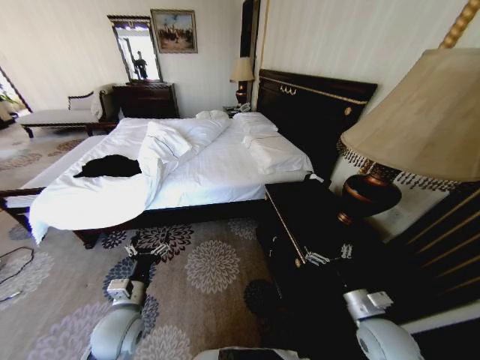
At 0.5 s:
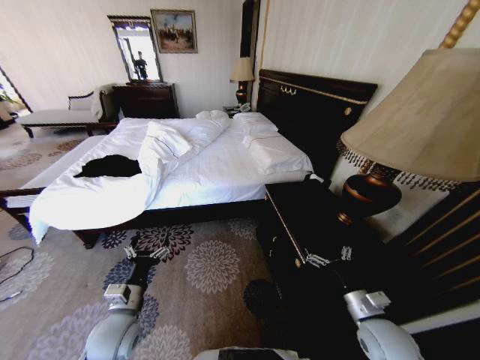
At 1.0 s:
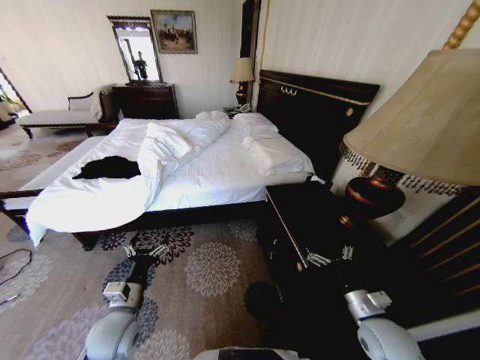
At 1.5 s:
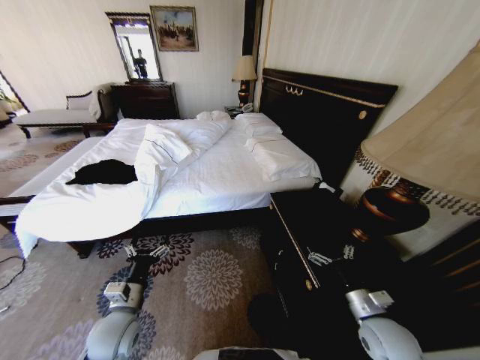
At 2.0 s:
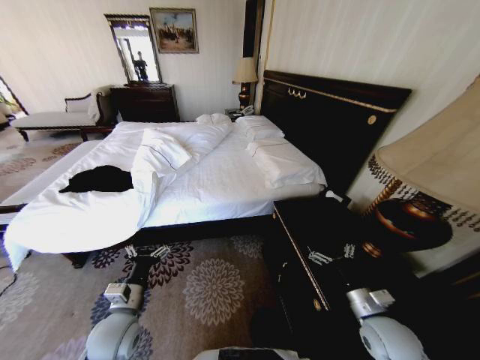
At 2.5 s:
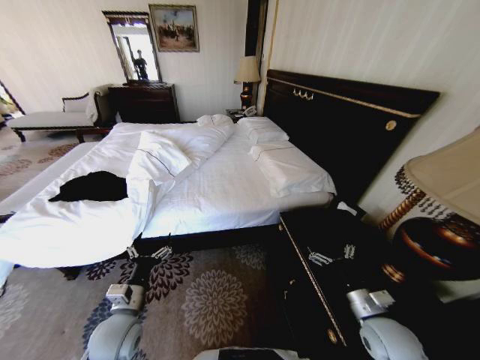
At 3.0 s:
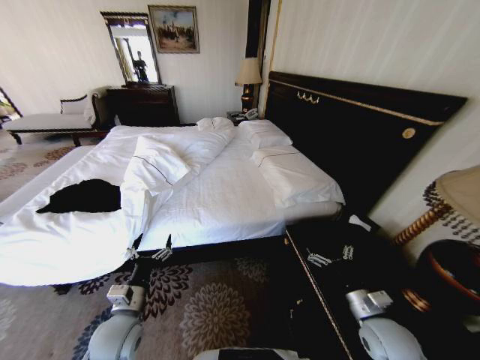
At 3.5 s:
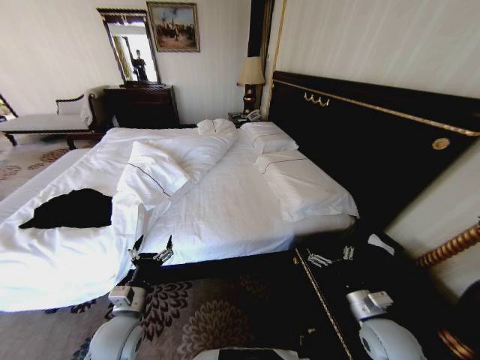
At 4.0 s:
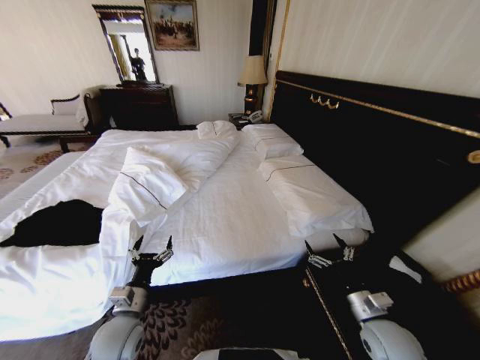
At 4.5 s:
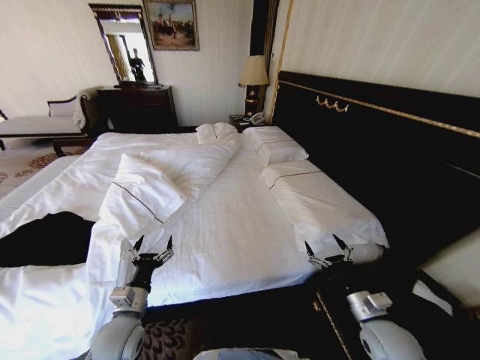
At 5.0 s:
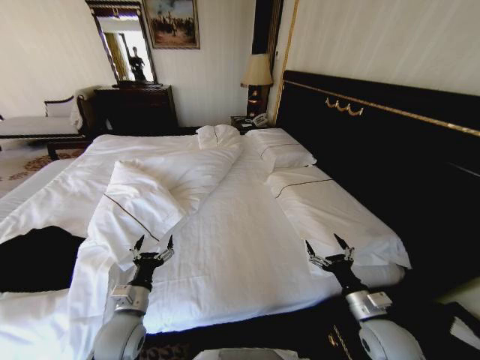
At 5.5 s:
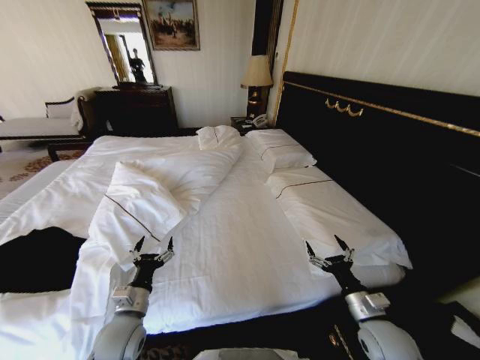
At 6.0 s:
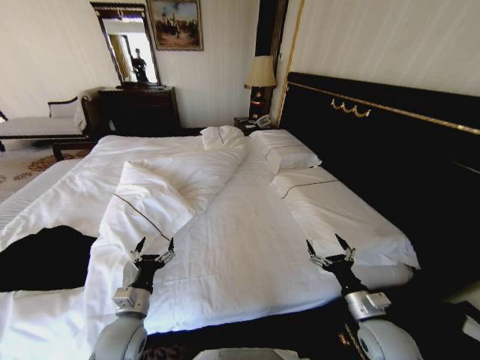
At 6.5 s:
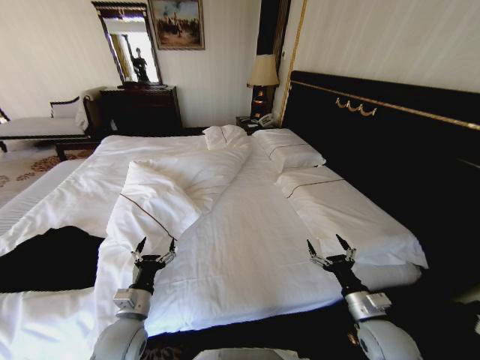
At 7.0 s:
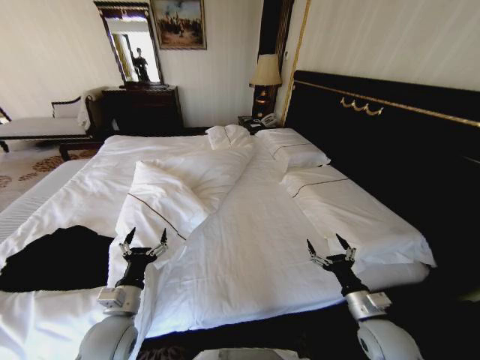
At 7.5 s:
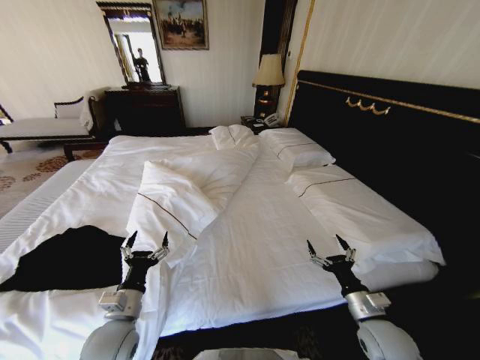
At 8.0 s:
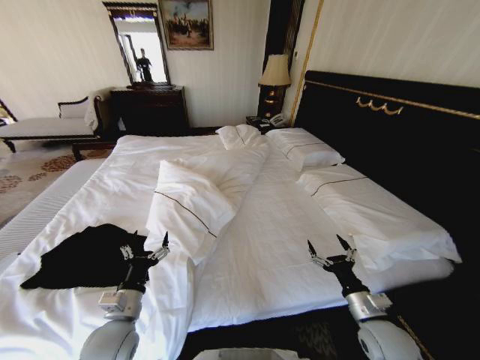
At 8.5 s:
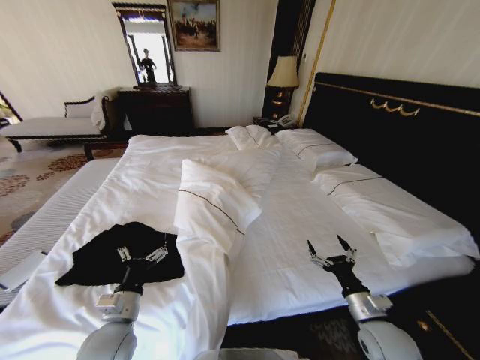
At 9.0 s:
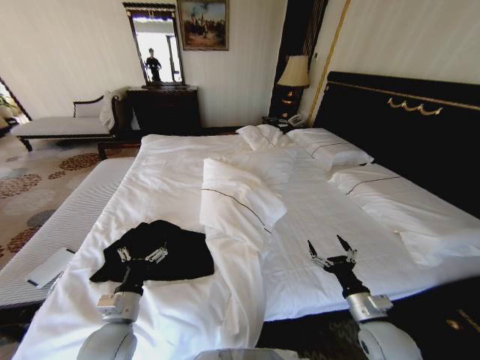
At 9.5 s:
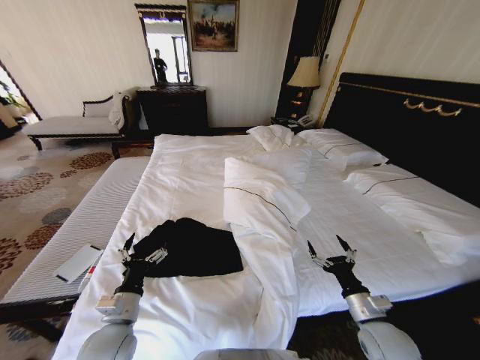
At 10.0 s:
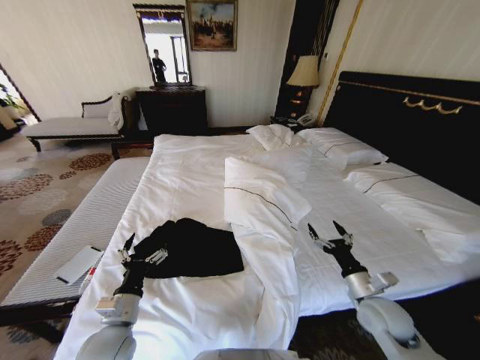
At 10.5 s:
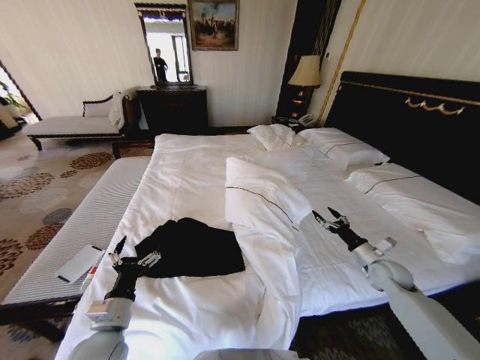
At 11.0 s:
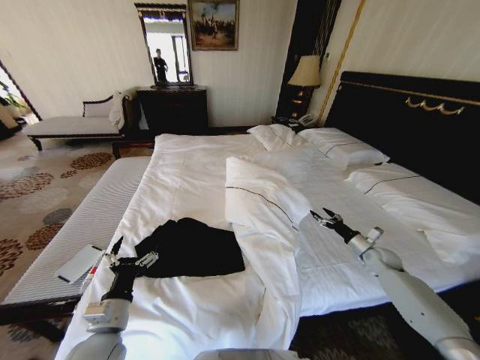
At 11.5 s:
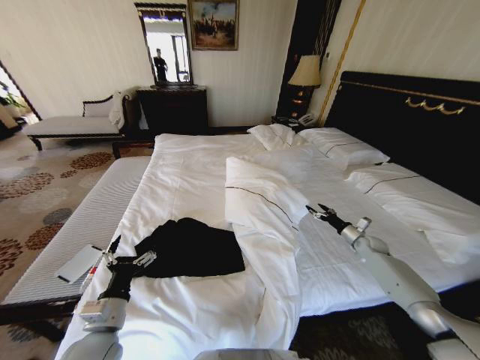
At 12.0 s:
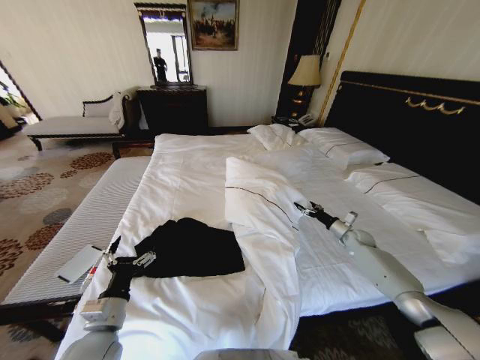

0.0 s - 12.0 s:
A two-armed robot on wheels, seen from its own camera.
Task of the whole recording: Fold the clothes on the bed.
8.0 s - 10.0 s: The right gripper shifts by roughly 5 cm.
10.0 s - 12.0 s: The right gripper travels forward and to the right by approximately 30 cm.

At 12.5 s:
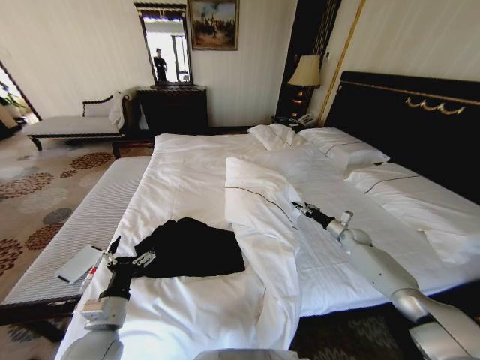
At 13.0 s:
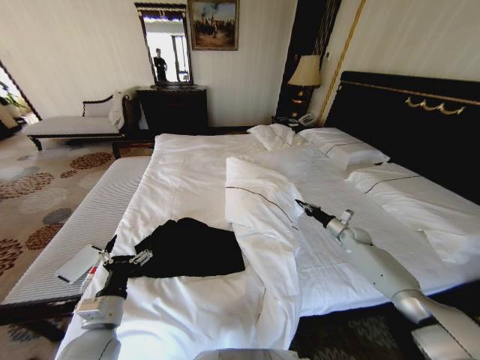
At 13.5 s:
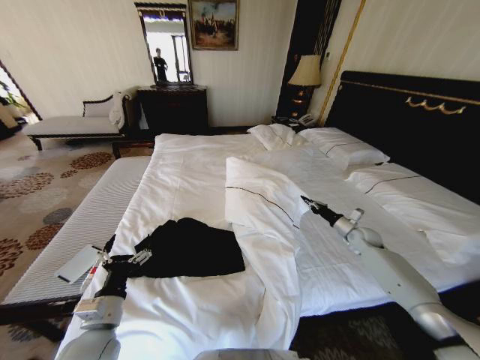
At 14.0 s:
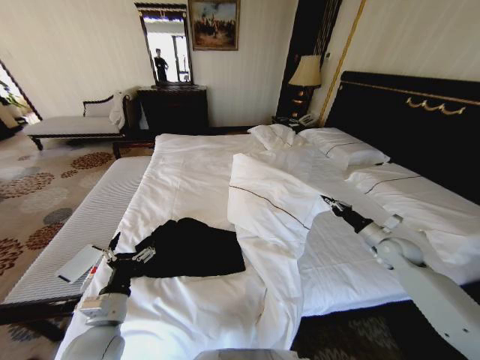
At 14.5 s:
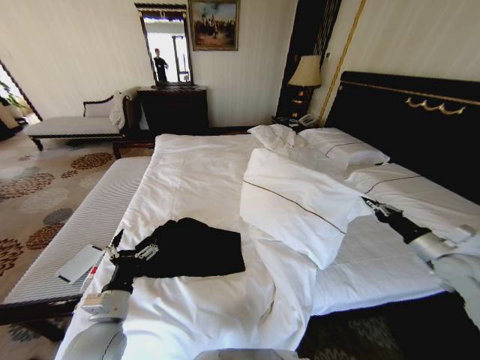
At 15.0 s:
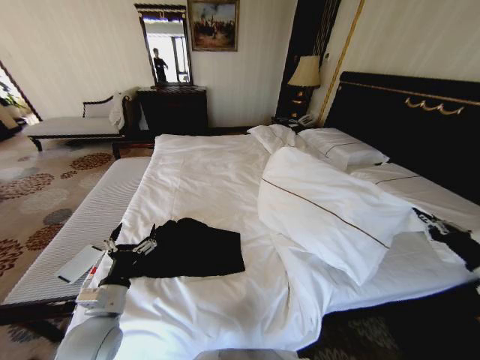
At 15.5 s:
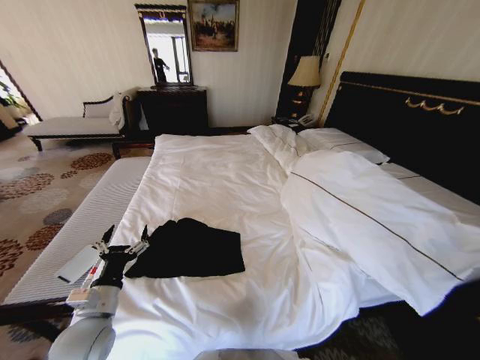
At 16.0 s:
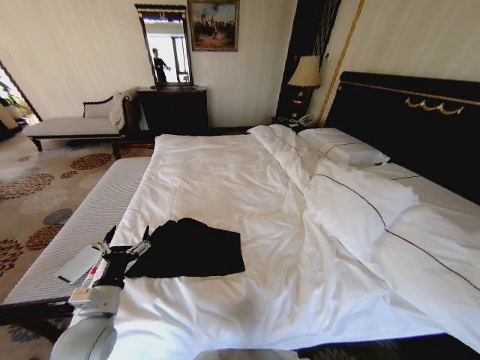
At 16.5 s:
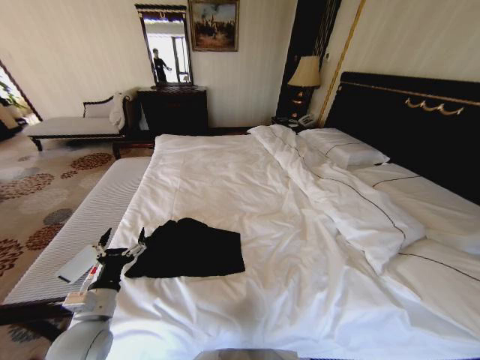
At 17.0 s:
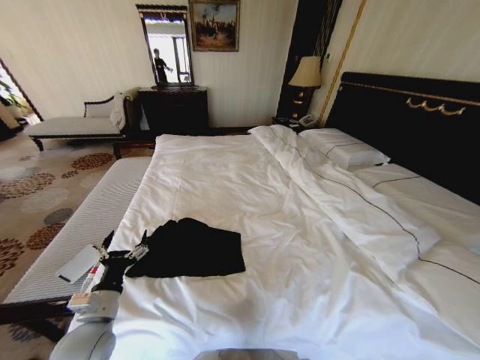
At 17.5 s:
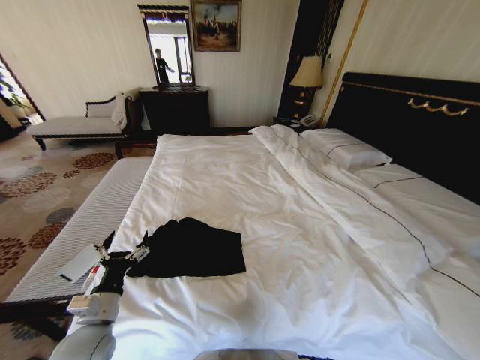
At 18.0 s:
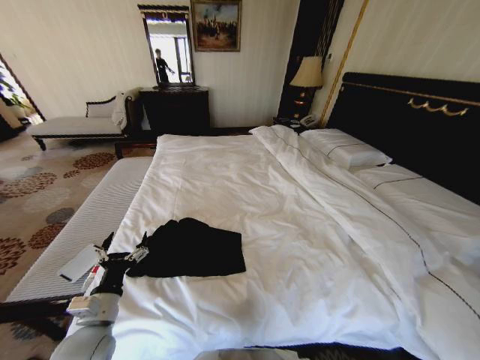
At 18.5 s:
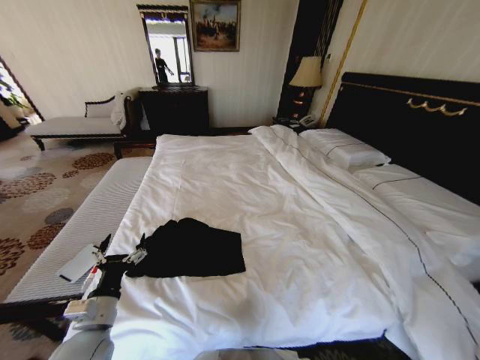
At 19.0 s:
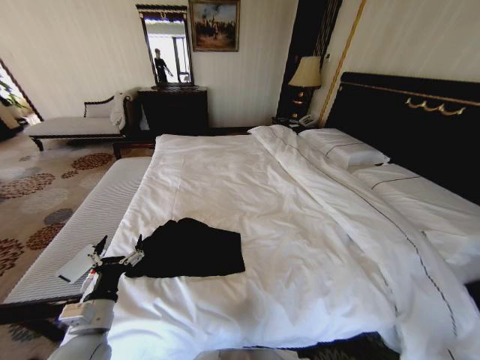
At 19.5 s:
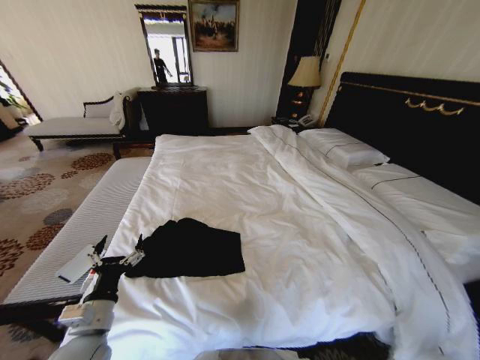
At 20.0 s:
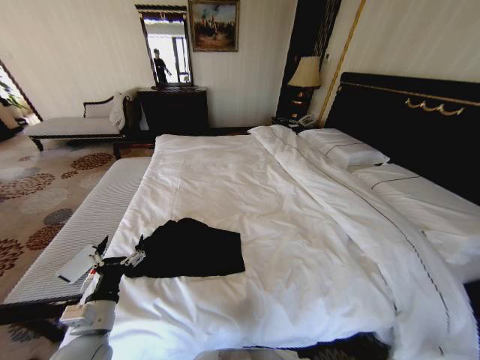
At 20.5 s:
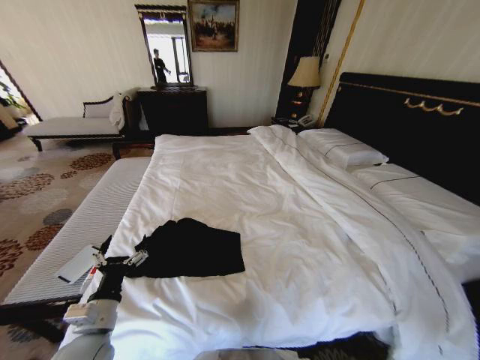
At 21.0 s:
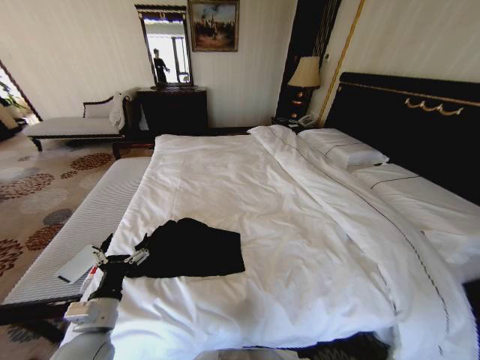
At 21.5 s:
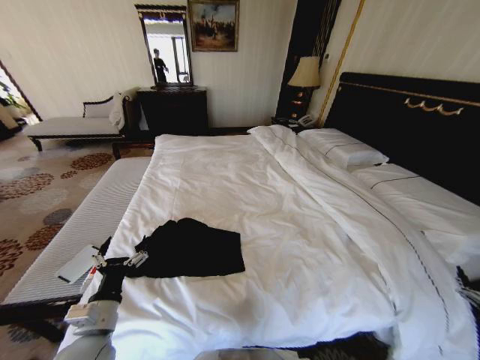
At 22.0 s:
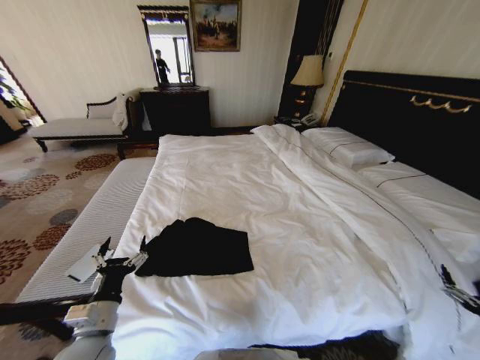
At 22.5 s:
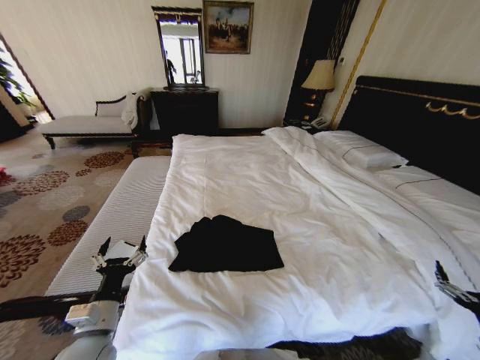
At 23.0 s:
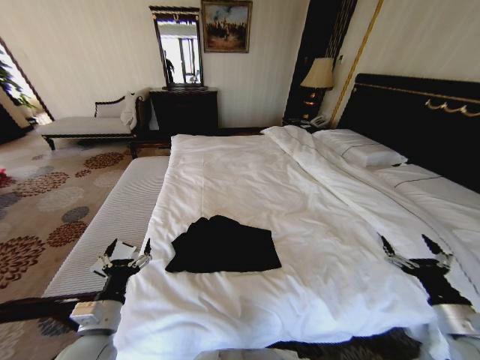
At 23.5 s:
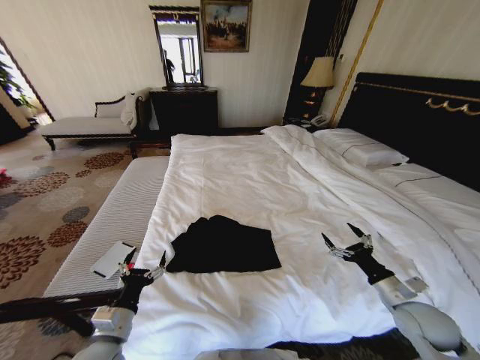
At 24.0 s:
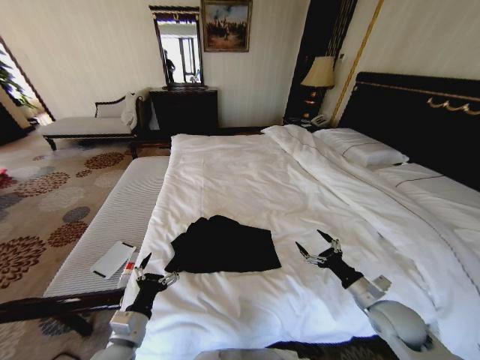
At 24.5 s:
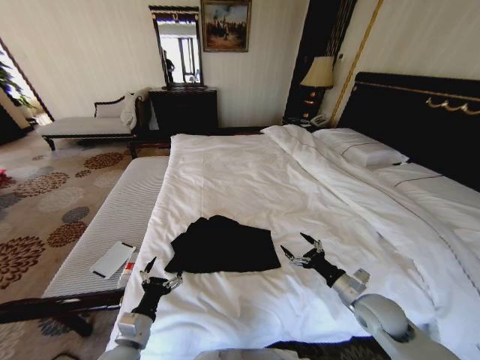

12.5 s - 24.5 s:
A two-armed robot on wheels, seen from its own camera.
Task of the whole recording: Fold the clothes on the bed.
12.5 s - 14.5 s: The right gripper travels backward and upward by approximately 25 cm, and closes up.
14.5 s - 16.5 s: The right gripper goes about 35 cm backward and to the right.
16.5 s - 18.5 s: The right gripper travels downward and backward by some 25 cm.
18.5 s - 20.5 s: The right gripper heads to the left, covering roughly 5 cm, reaches roughly 10 cm downward, then returns, and opens its fingers.
20.5 s - 22.5 s: The right gripper is displaced forward, upward and to the left by about 25 cm.
22.5 s - 24.5 s: The left gripper travels downward by about 5 cm; the right gripper goes about 25 cm to the left and forward.

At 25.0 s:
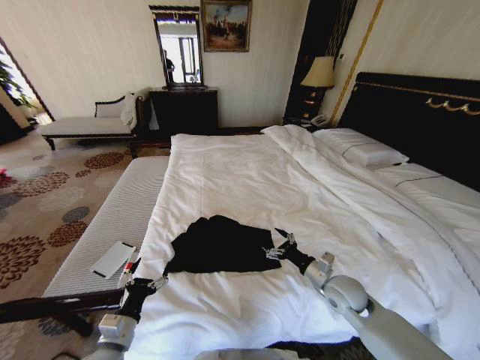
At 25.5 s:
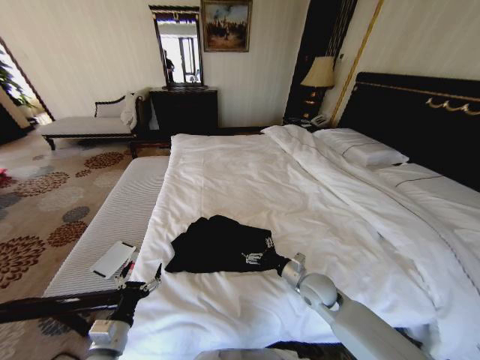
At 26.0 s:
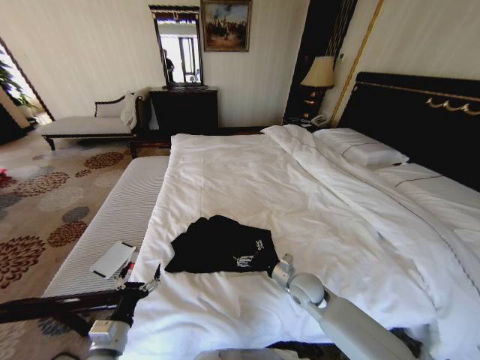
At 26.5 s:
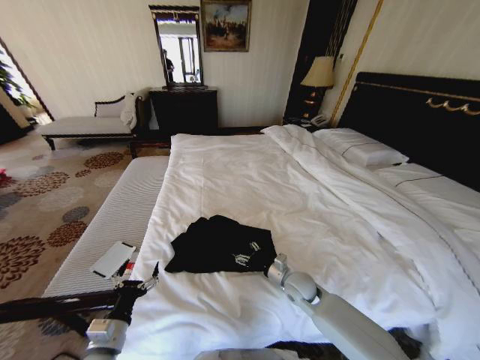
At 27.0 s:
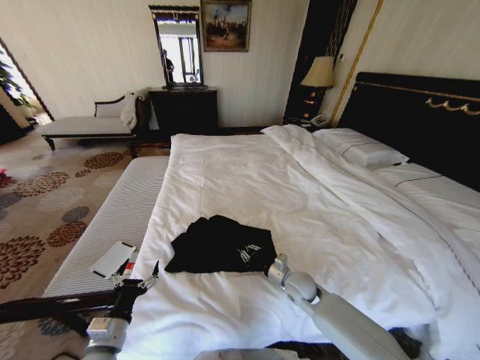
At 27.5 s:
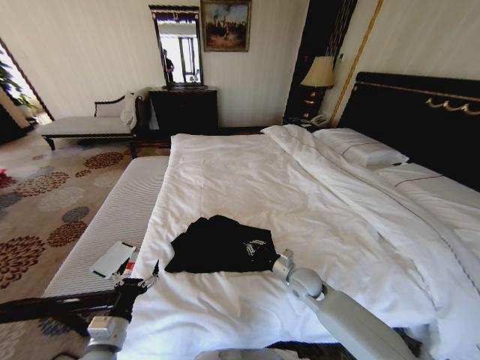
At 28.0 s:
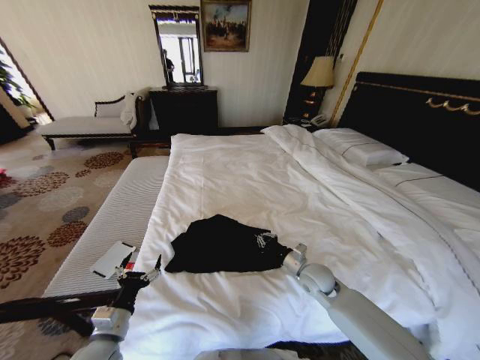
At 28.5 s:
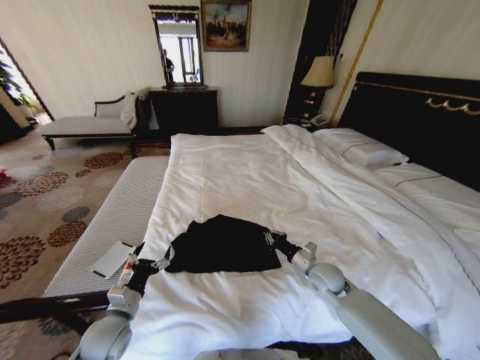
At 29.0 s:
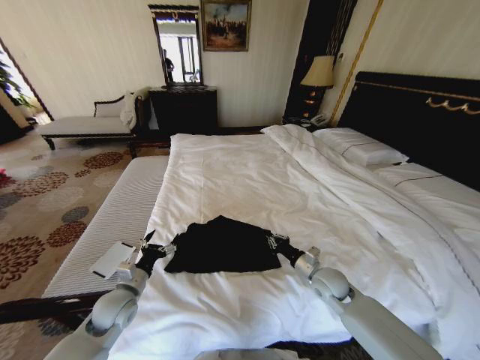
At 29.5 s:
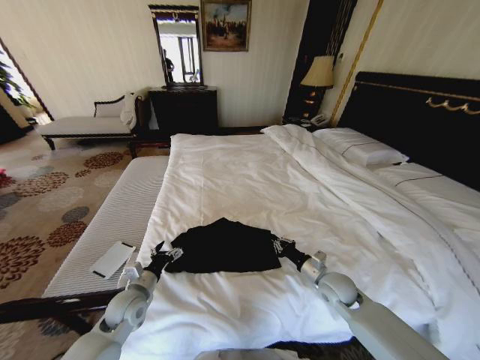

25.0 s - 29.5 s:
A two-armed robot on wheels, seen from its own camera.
Task of the whole recording: Fold the clothes on the bed.
25.0 s - 27.0 s: The right gripper travels to the left and downward by about 10 cm, and closes its fingers.
27.0 s - 29.5 s: The right gripper is displaced to the right by about 10 cm; the left gripper shifts approximately 15 cm forward.
